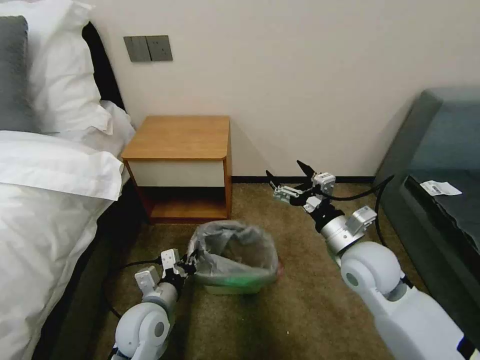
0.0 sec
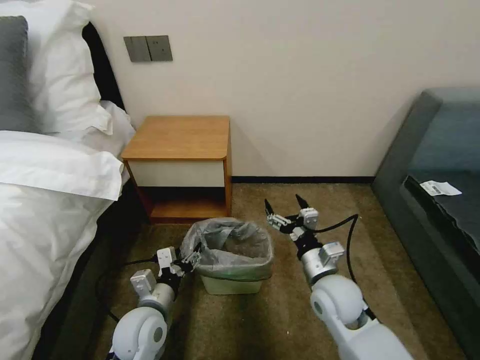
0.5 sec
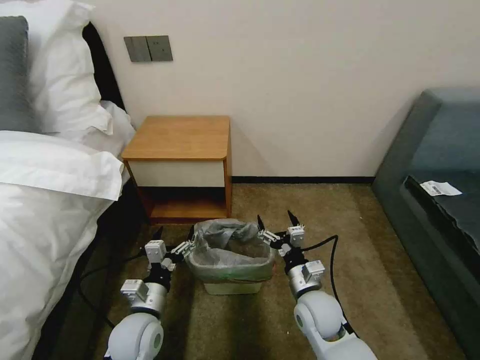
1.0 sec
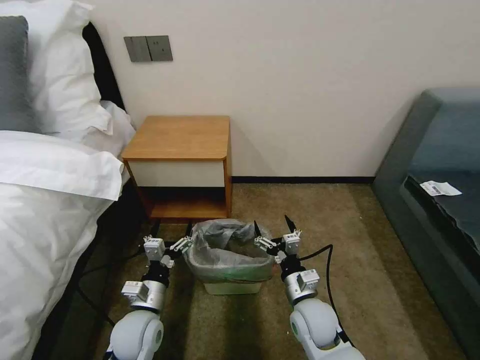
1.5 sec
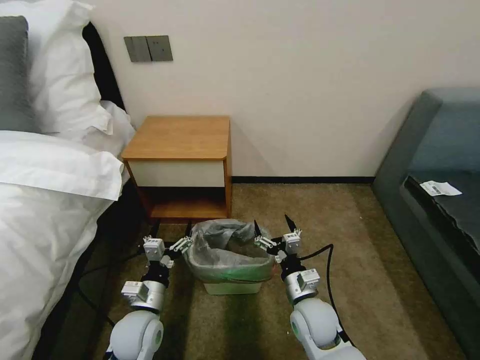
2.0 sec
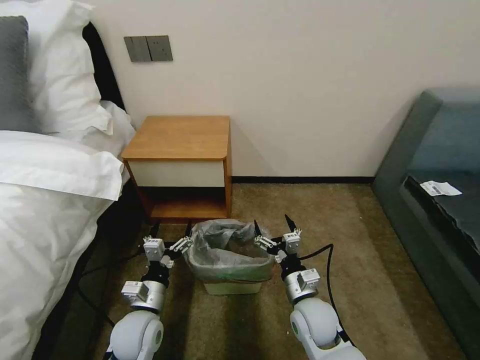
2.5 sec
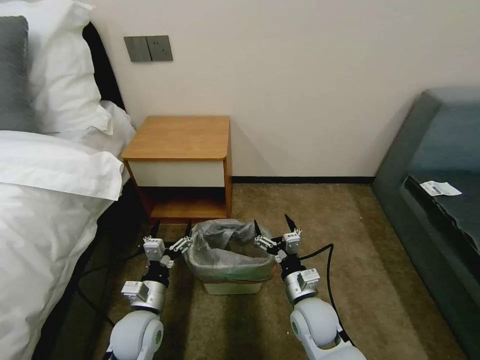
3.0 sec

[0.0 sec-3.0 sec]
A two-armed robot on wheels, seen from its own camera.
Task of the whole recording: Pick up the garbage bag from the table and place it over the trash can.
0.0 sec to 1.5 sec: The right gripper travels downward and to the left by roughly 20 cm, while the left gripper opens its fingers.
1.5 sec to 3.0 sec: The two grippers keep their place.
